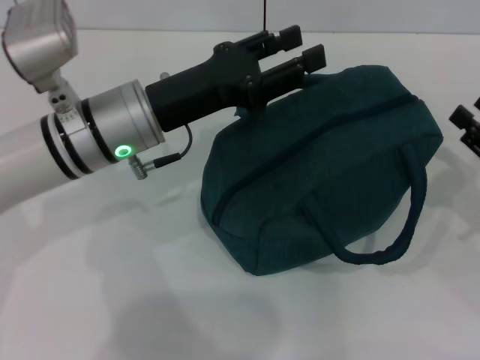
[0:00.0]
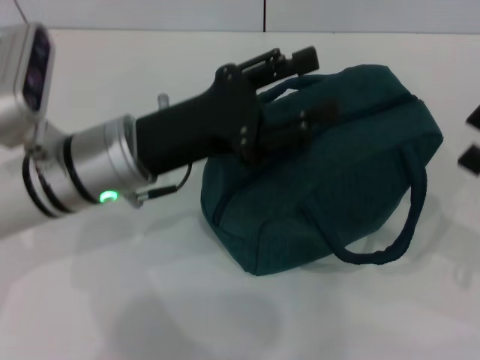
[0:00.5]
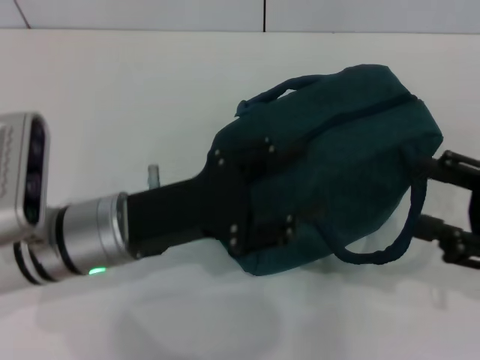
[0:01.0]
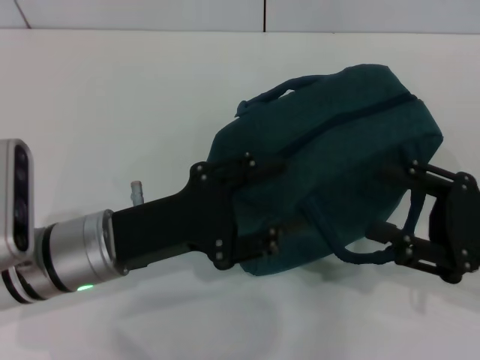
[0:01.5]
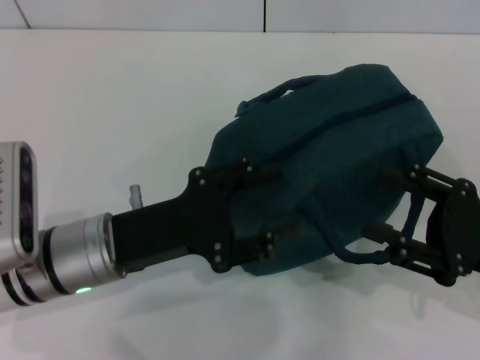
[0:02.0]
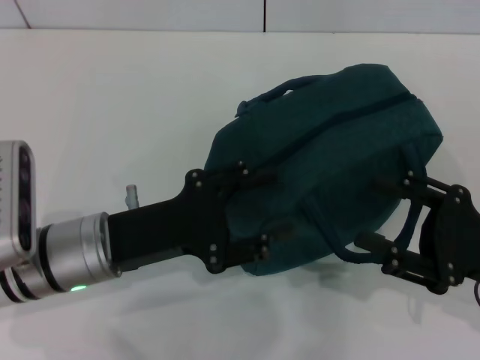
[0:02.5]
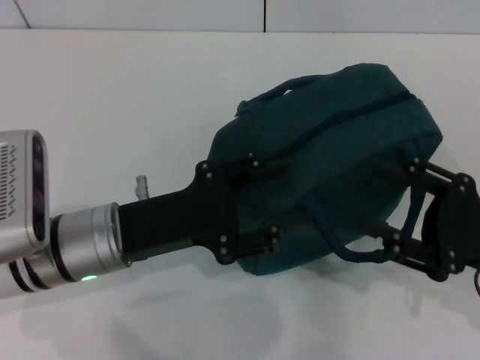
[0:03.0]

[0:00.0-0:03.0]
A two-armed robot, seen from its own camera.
0:00.0 to 0:01.5: The right gripper travels to the left by approximately 5 cm. The left gripper is displaced backward by about 10 cm.
0:01.5 to 0:03.0: The grippers make only small movements.

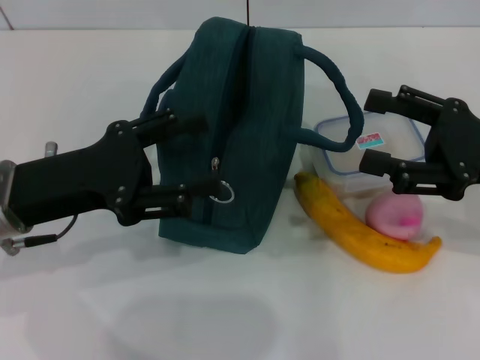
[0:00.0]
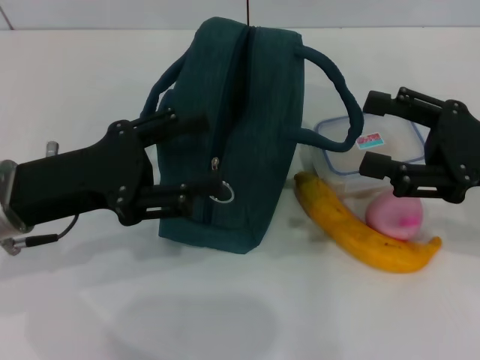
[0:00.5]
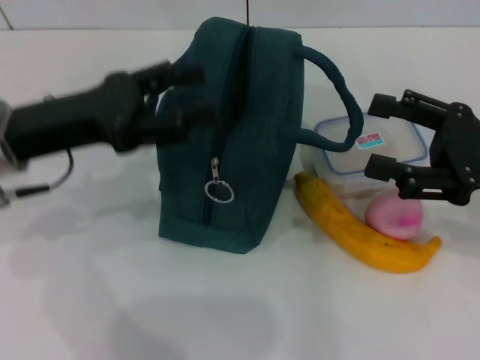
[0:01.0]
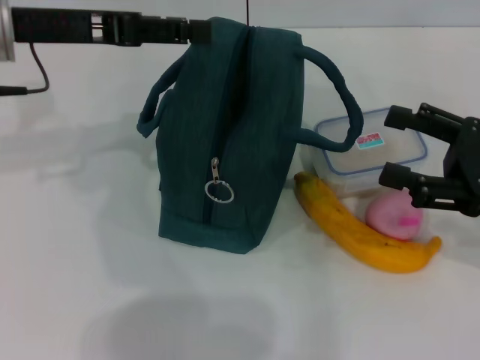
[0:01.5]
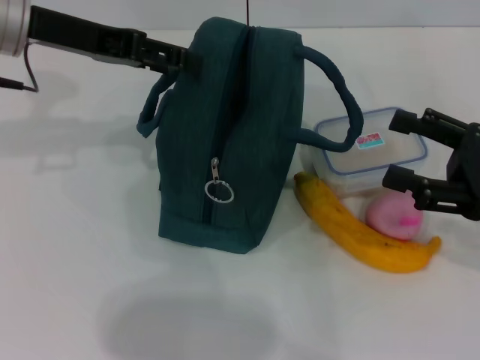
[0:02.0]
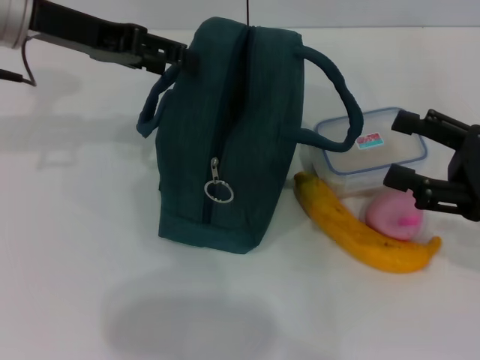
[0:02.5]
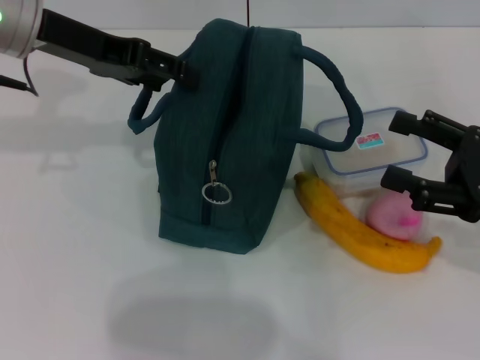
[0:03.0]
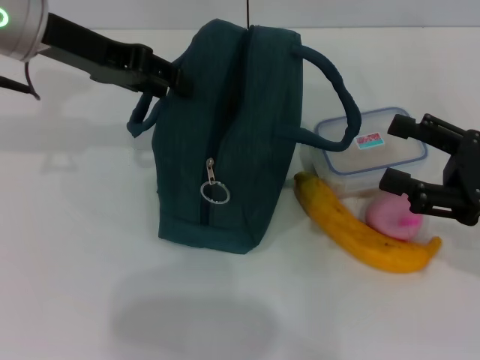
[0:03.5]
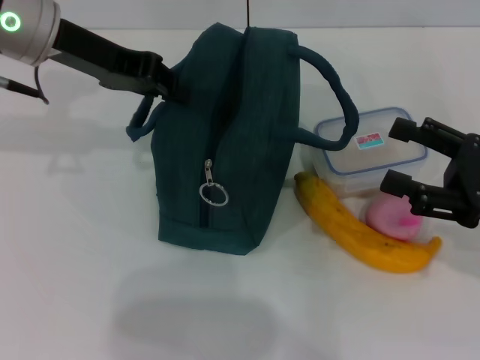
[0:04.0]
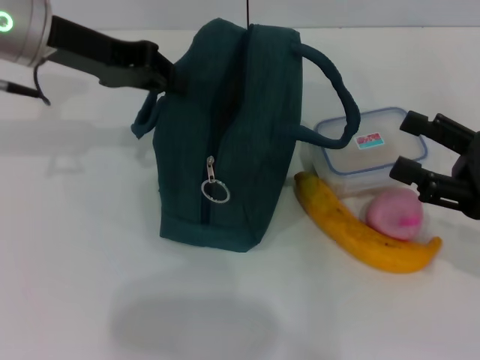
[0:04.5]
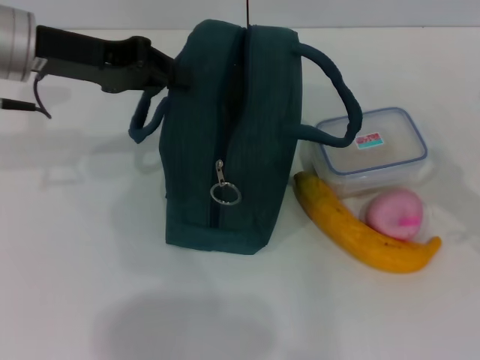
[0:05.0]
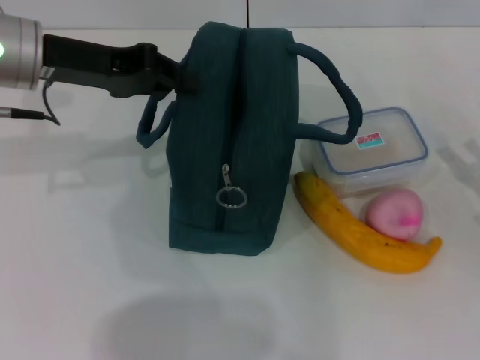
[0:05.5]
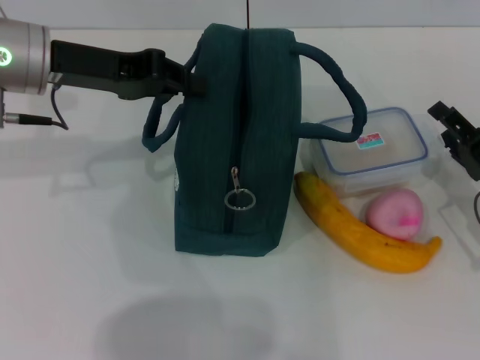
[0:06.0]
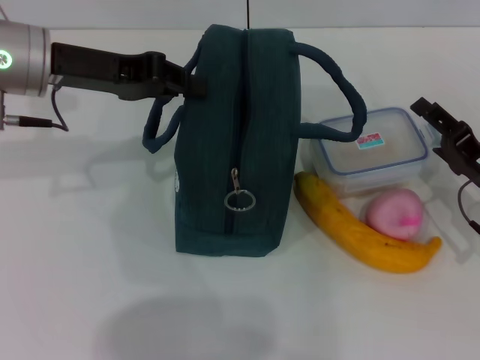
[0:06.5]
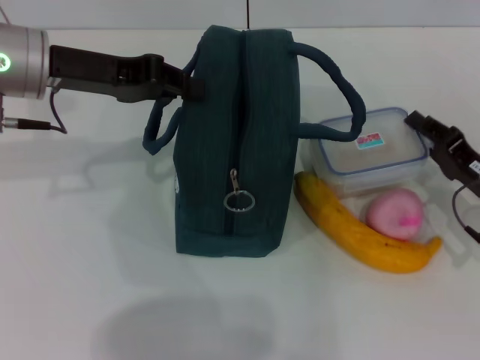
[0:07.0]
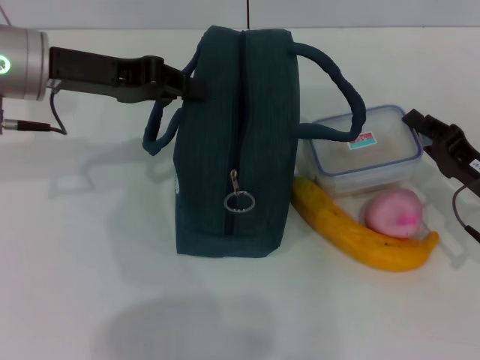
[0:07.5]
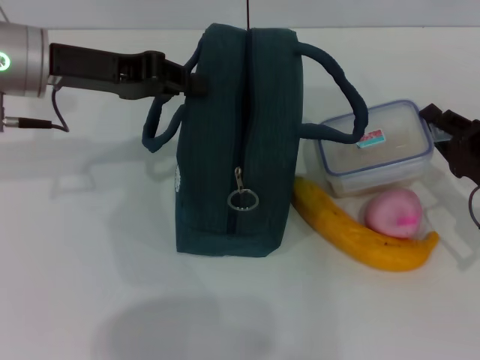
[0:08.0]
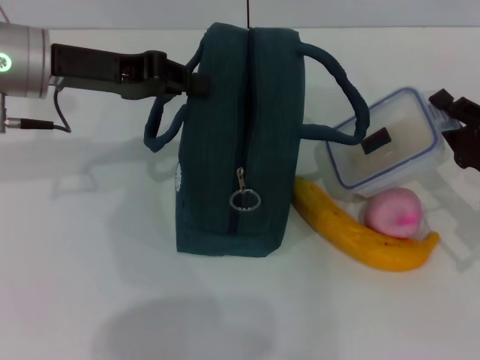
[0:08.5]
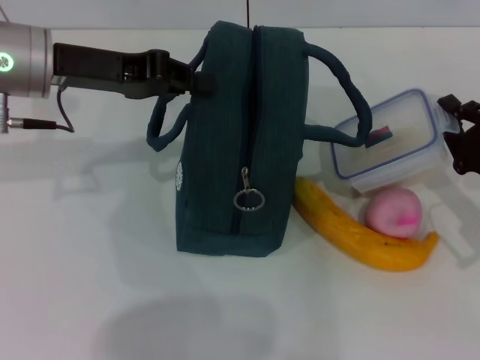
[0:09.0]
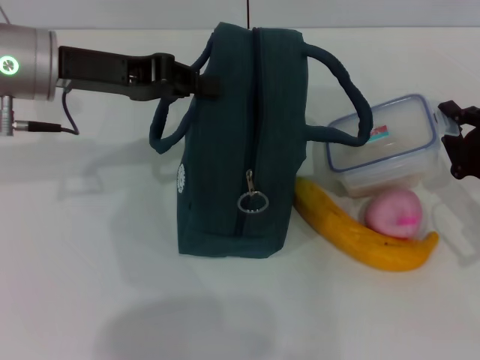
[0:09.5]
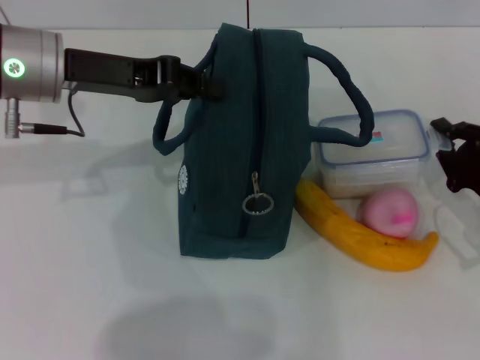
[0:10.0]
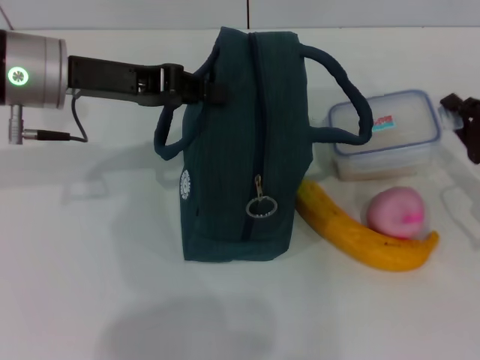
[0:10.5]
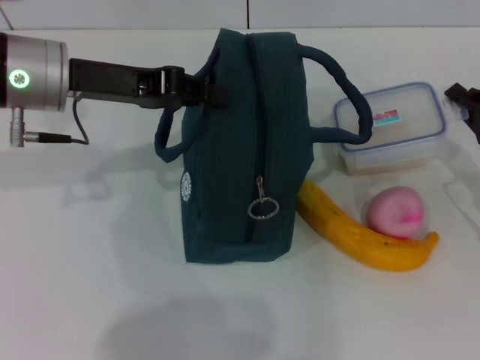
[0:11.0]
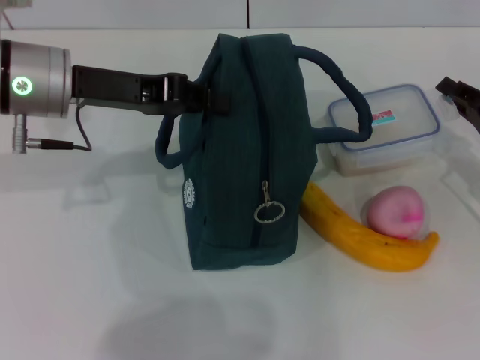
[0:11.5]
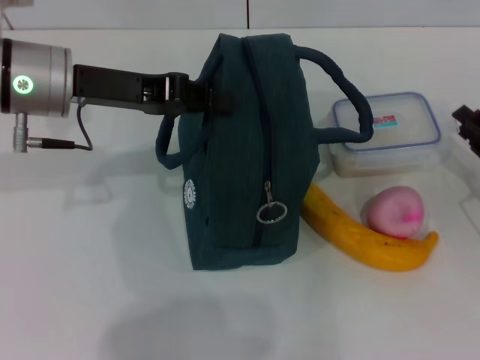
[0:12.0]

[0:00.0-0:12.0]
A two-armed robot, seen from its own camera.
Step, 0:00.0 to 0:04.0: Hold the lunch bag with your left hand.
0:00.0 to 0:02.0: The left gripper is displaced forward and upward by approximately 15 cm.
0:02.0 to 0:04.0: The left gripper closes.
0:04.0 to 0:06.0: The right gripper is displaced downward by about 10 cm.
0:06.0 to 0:08.0: The right gripper closes its fingers.

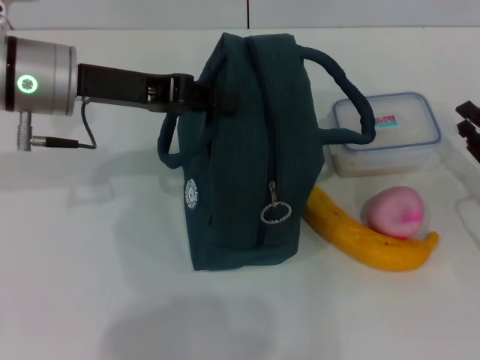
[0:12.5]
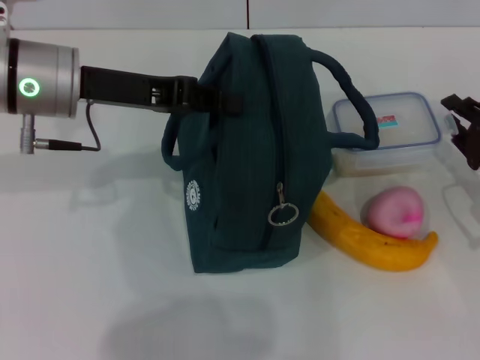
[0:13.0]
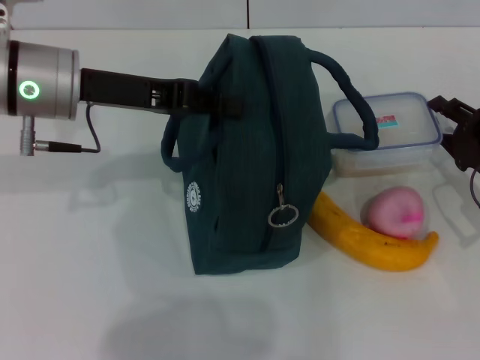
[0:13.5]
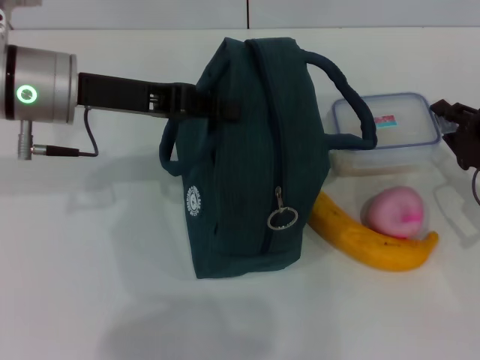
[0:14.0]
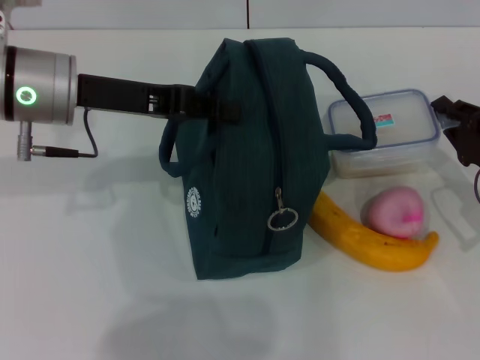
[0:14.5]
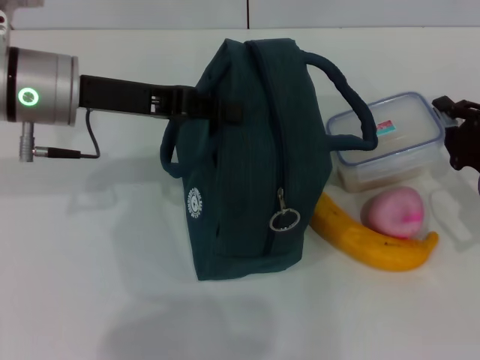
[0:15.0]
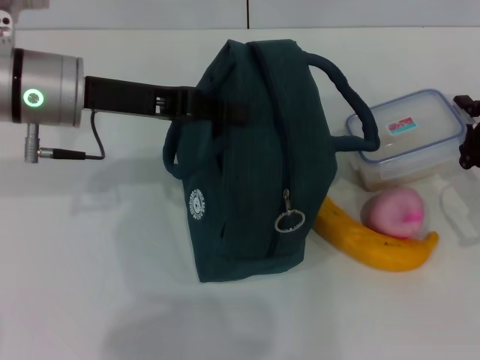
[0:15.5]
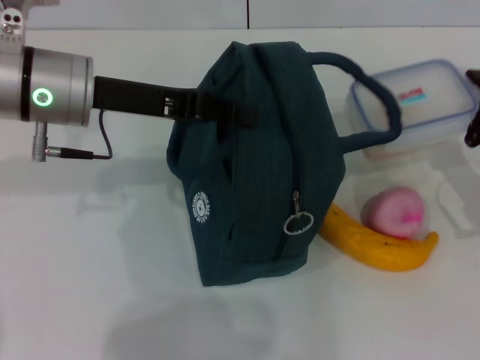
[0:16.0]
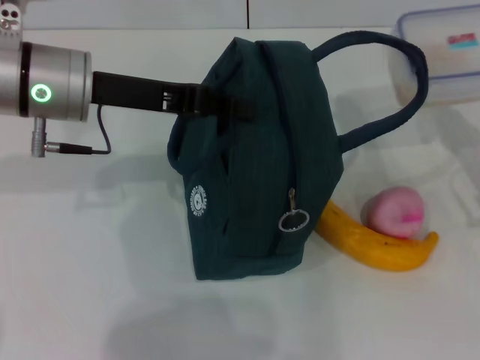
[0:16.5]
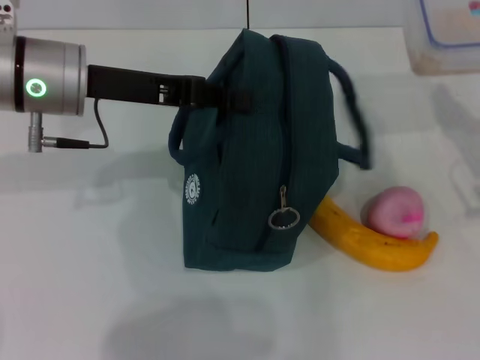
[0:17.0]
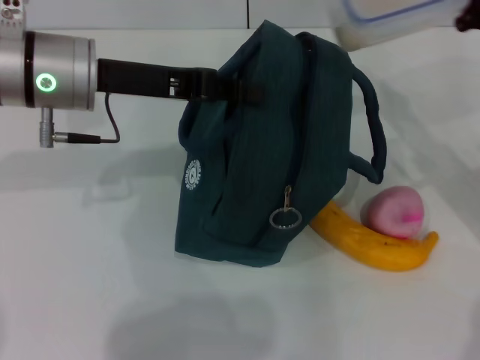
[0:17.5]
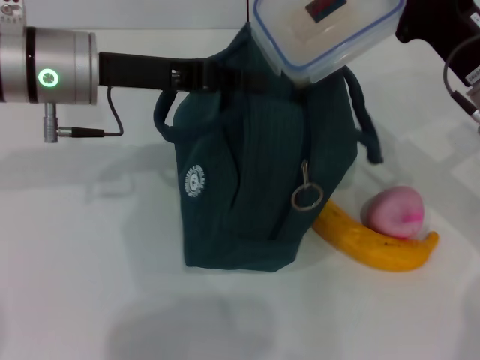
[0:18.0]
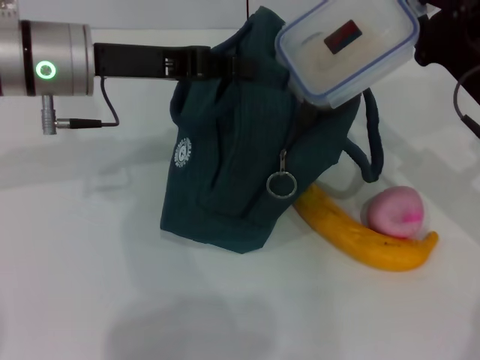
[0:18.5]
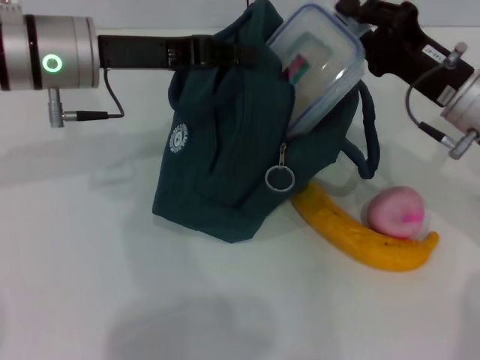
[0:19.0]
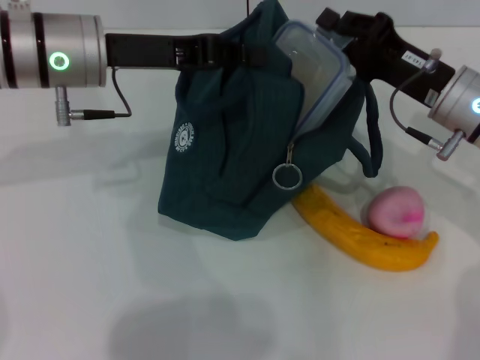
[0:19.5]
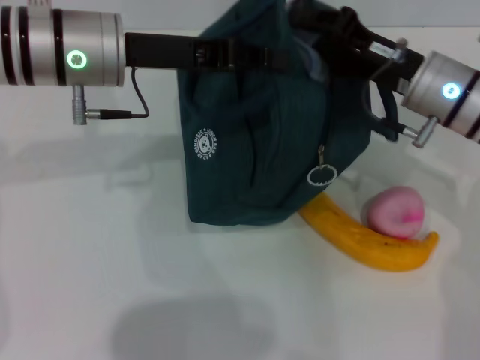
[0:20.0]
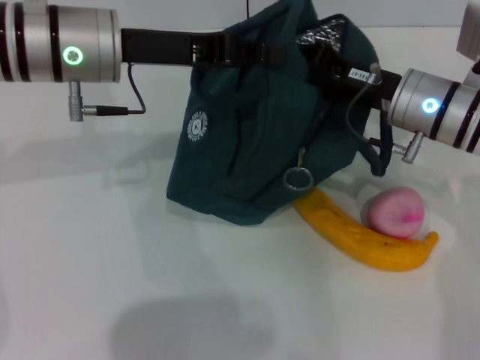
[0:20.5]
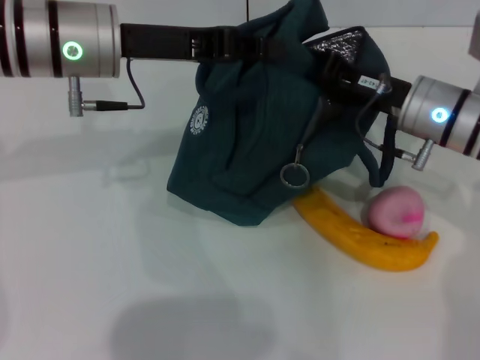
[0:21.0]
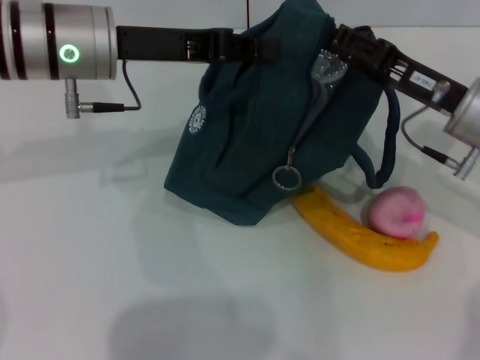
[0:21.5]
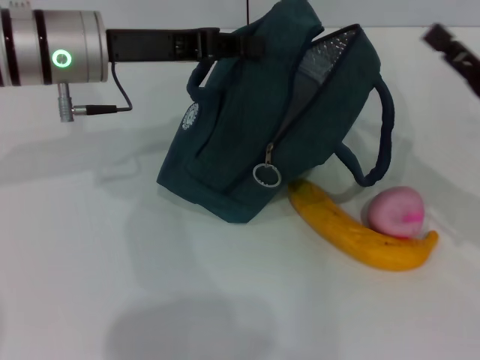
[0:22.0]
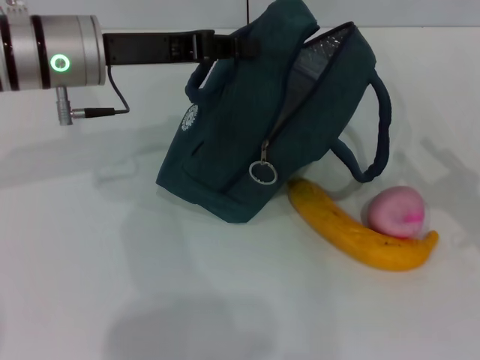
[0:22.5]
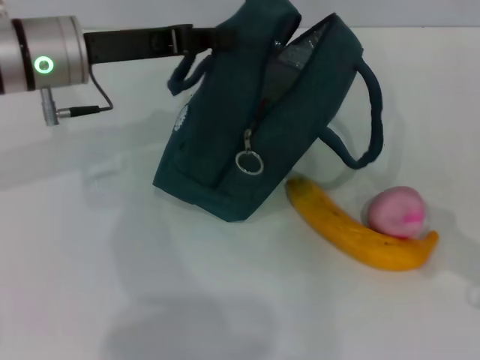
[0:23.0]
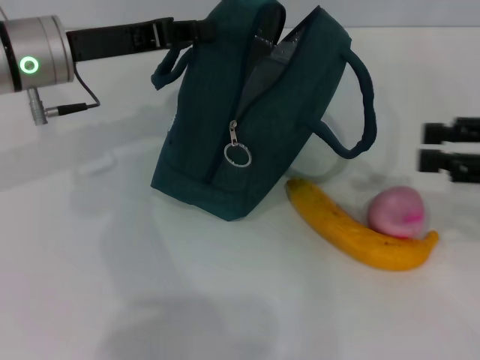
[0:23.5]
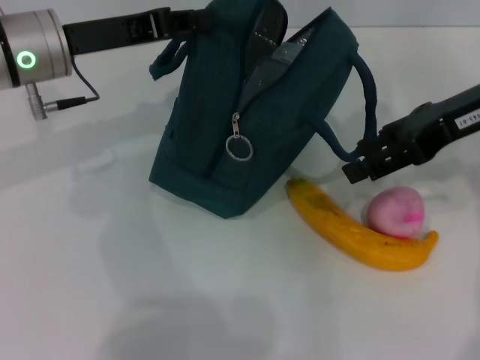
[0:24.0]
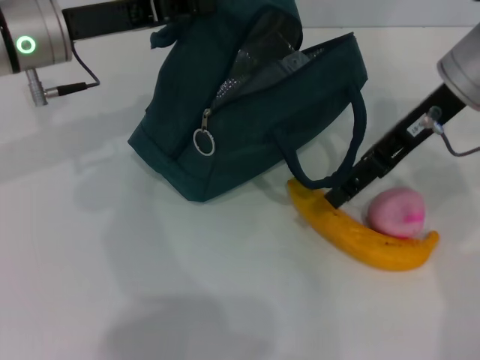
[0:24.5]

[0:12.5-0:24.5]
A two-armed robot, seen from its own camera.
Step, 0:14.5 to 0:21.0: Place the lunch box into the lunch bag with your right hand.
0:12.5 to 0:14.5: The grippers stay close to where they were, moving slightly.
0:16.5 to 0:18.5: The right gripper is displaced to the left by about 5 cm.
0:18.5 to 0:20.5: The right gripper is displaced to the left by about 5 cm.
0:20.5 to 0:22.5: The right gripper travels backward and to the right by about 20 cm, and opens its fingers.
0:22.5 to 0:24.5: The right gripper goes about 25 cm upward, to the left and forward.
